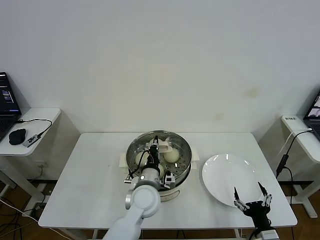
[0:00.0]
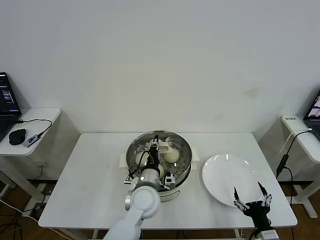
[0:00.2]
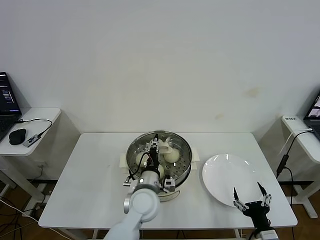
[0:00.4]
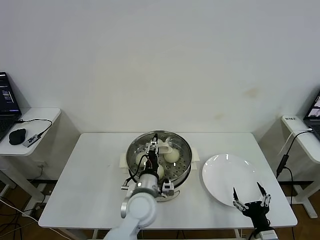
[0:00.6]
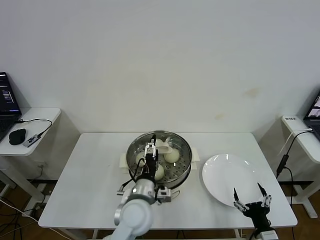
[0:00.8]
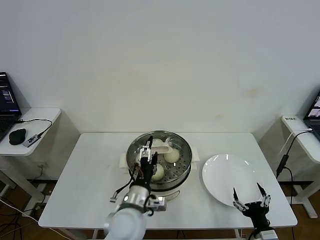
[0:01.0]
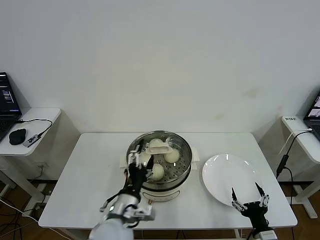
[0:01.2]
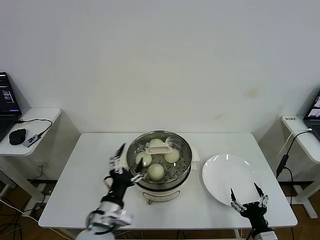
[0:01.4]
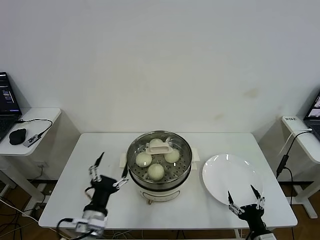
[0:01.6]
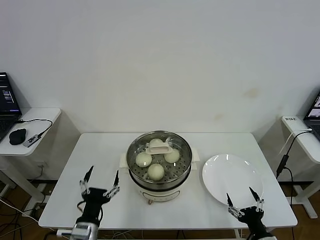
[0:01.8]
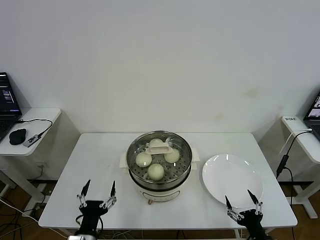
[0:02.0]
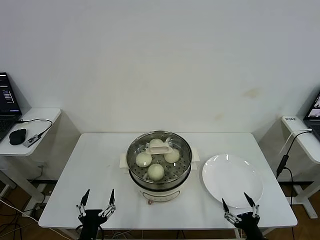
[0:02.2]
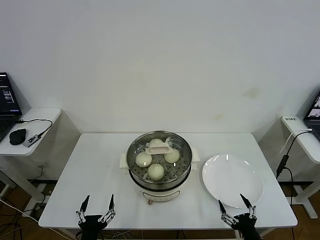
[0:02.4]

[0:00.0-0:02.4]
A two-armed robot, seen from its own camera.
Task of the whole recording: take steamed baozi put them in steamer then cover it.
0:00.0 to 0:01.2: The left gripper travels backward and to the left by approximately 10 cm, and opens.
0:01.2 to 0:02.4: The left gripper is displaced backward, to the left and downward by about 20 cm.
